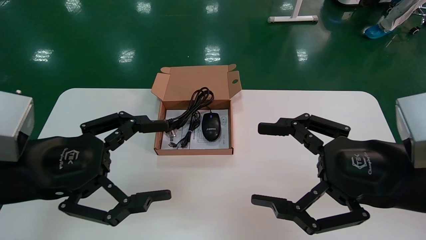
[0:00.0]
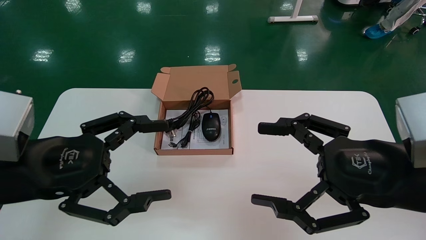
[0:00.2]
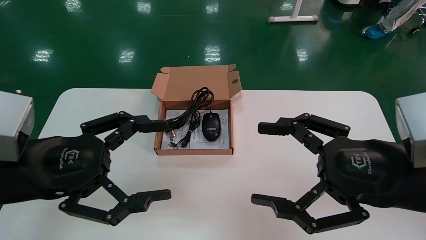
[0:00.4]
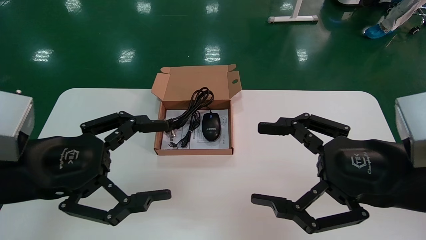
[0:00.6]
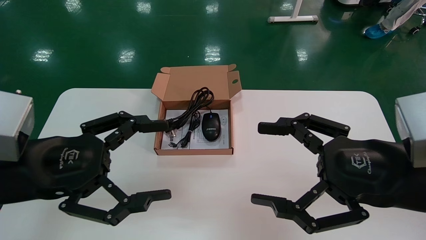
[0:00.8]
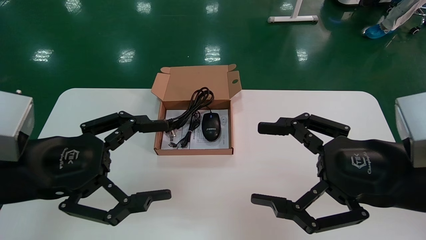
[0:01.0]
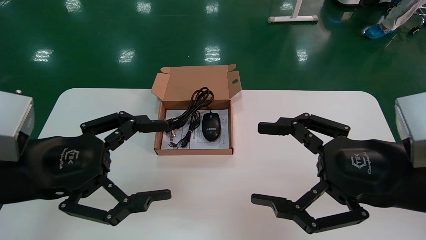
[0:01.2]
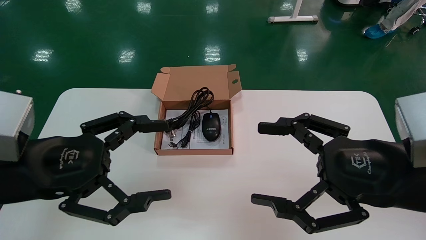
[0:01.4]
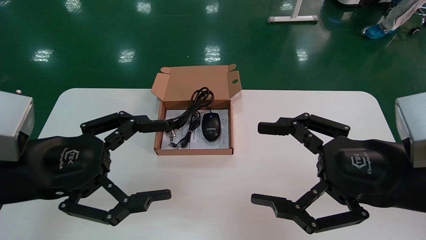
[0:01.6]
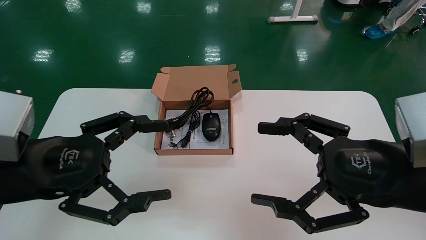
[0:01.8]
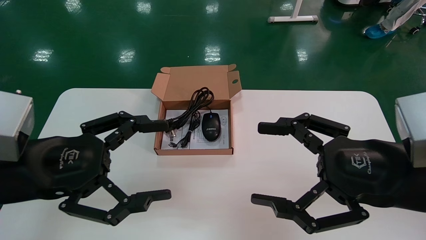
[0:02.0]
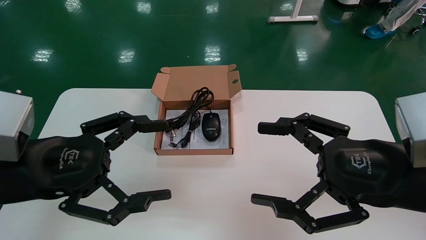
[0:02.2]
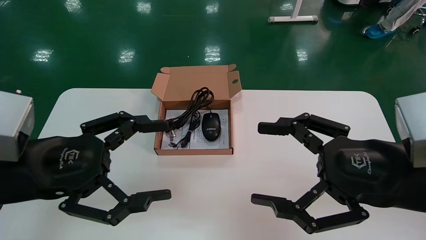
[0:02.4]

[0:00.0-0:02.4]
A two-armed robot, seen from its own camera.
0:00.0 to 0:02.4: Both grippers stay about where they are.
